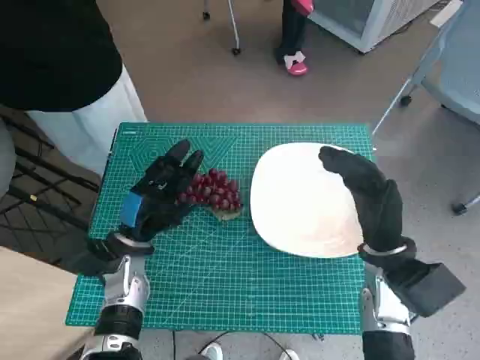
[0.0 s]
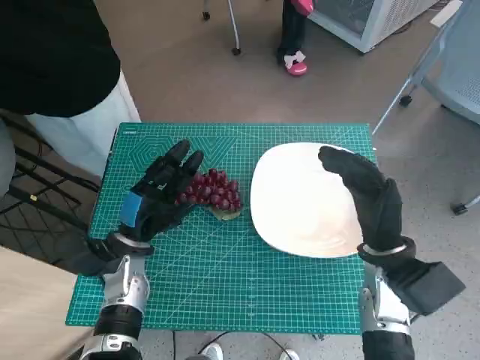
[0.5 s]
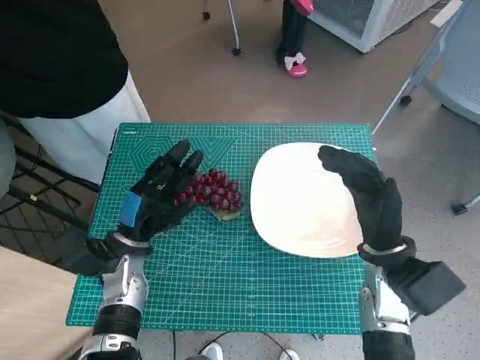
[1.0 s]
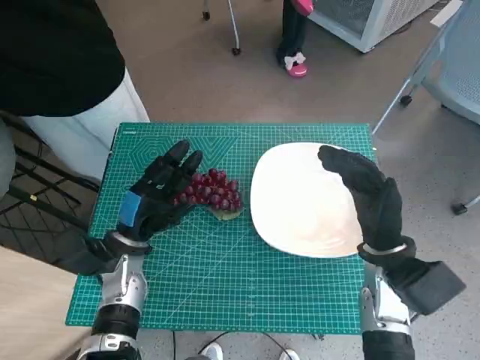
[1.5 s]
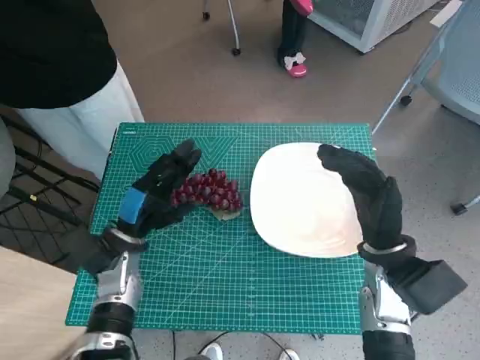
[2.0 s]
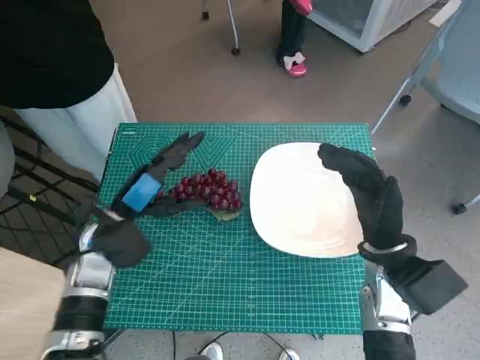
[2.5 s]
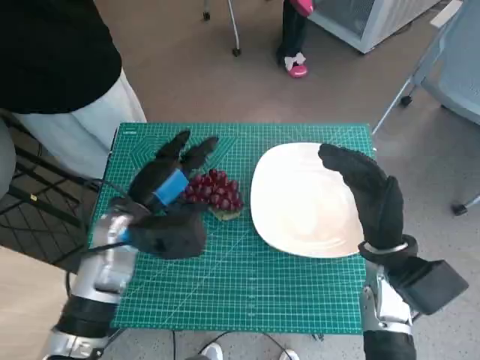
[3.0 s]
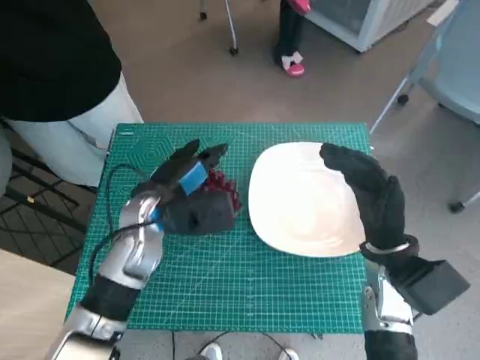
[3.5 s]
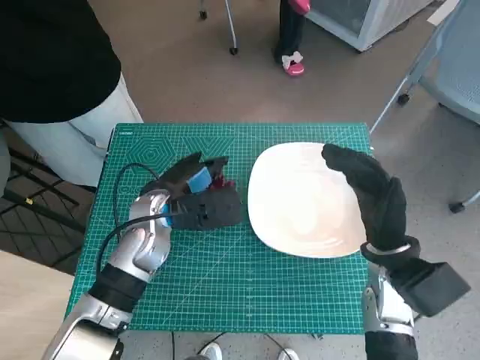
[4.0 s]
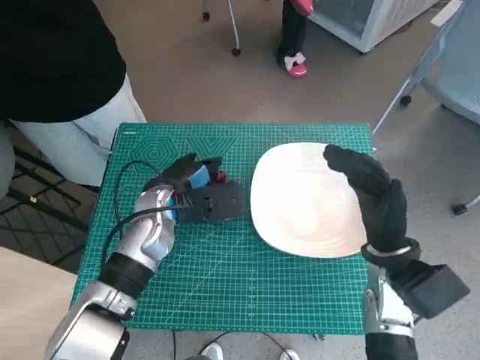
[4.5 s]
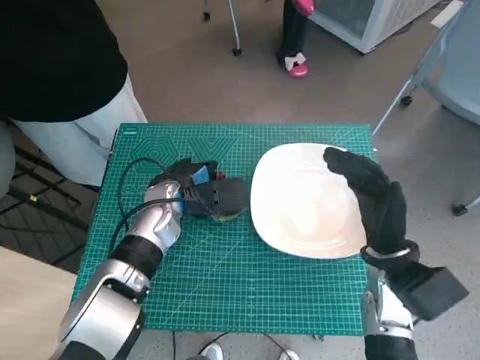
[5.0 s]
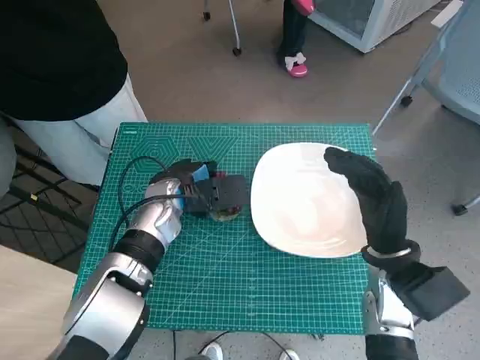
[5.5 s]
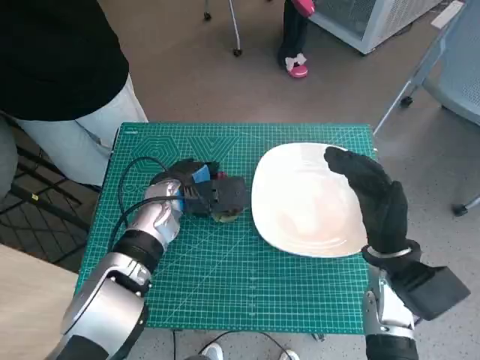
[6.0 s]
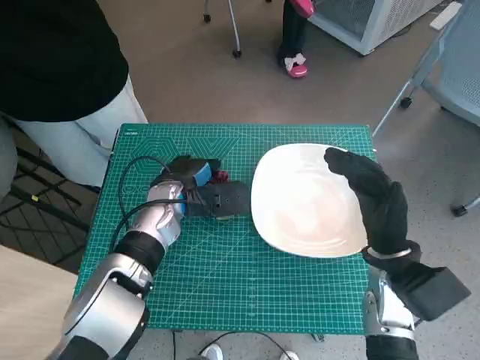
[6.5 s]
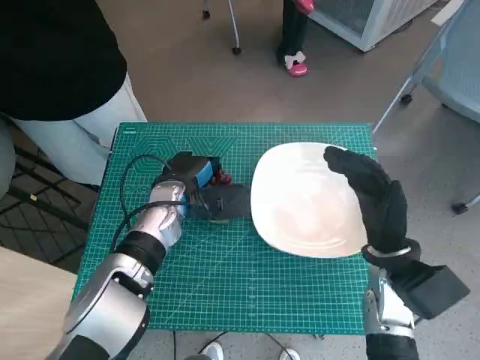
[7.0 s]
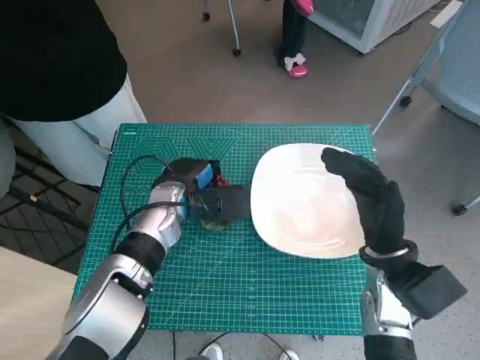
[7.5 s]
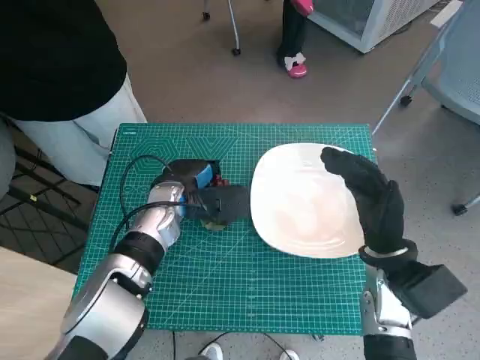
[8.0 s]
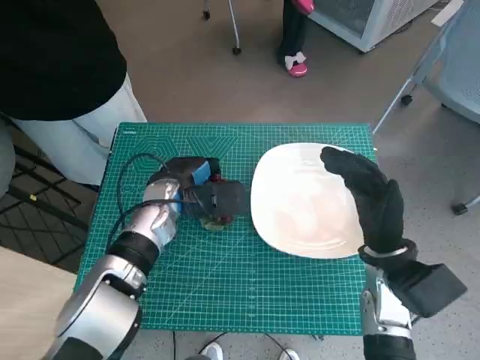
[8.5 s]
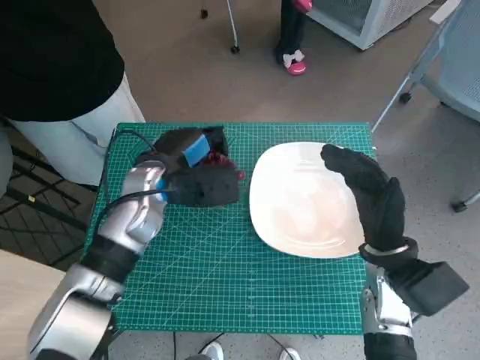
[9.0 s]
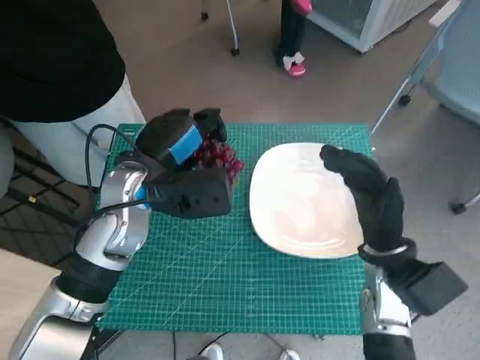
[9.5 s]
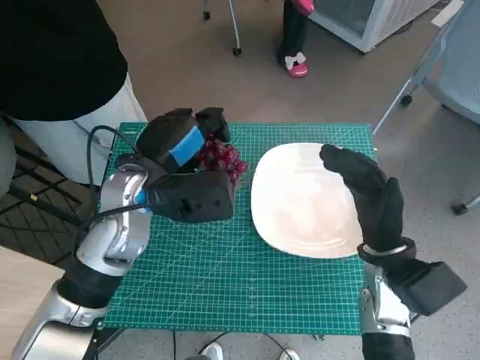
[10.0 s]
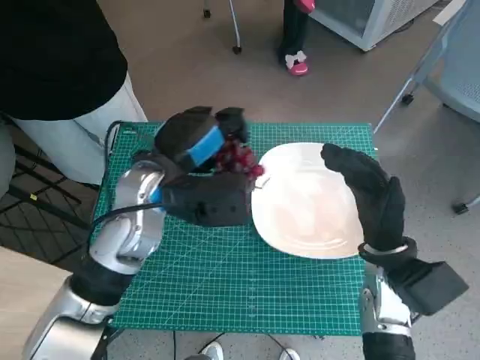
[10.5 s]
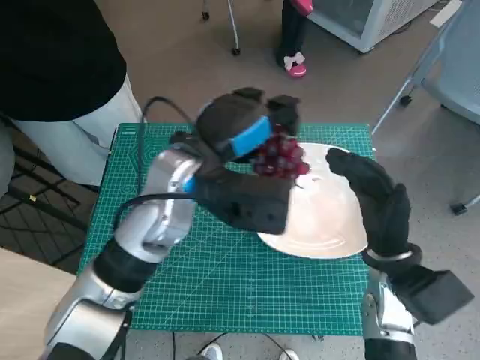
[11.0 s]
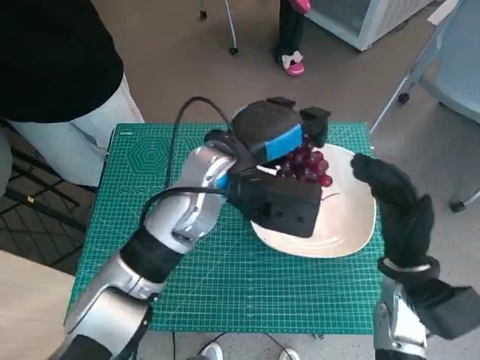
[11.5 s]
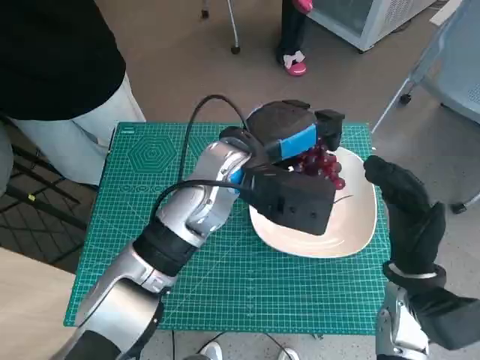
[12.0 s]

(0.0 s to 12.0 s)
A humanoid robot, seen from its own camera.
Task of the whole recording: Pick up the grapes and put them on the plate.
Step, 0.0 s - 7.5 s: Grasp the grapes with left hand.
2.0 s - 4.0 s: The left hand heads upward and to the right, covering some 10 cm.
4.0 s - 8.0 s: The hands move only a little.
8.0 s - 10.0 s: The left hand heads upward, covering approximately 10 cm.
10.0 s - 12.0 s: The left hand heads to the right, covering some 10 cm.

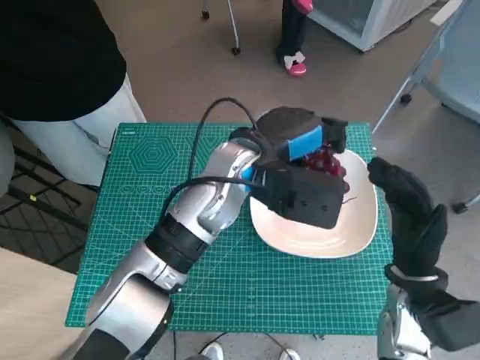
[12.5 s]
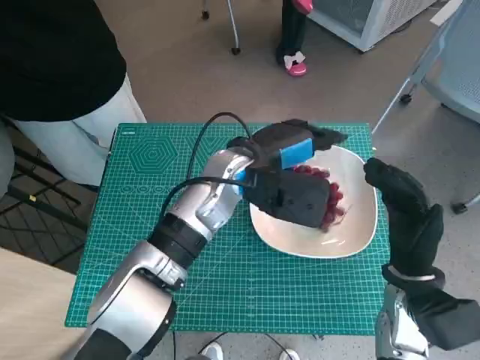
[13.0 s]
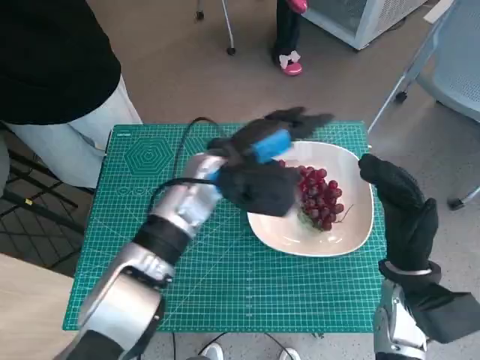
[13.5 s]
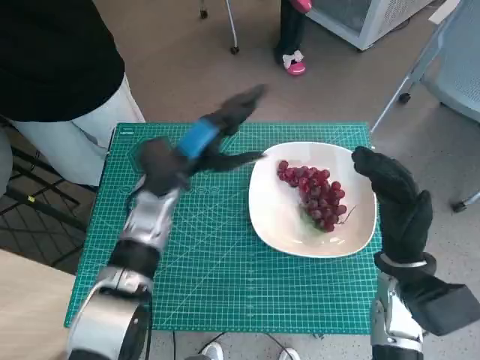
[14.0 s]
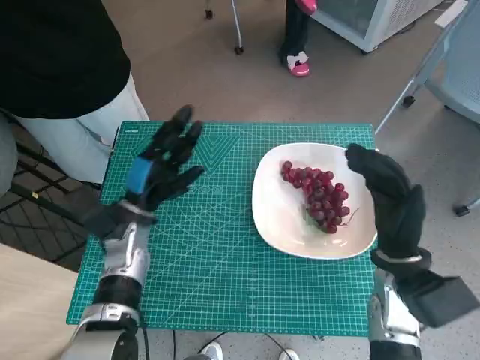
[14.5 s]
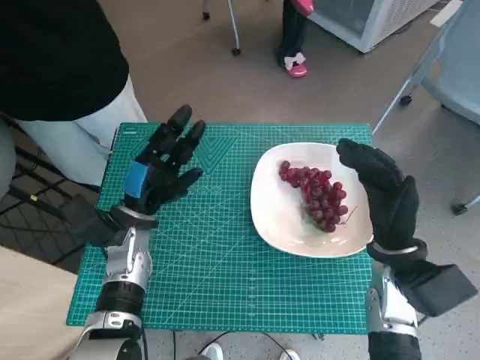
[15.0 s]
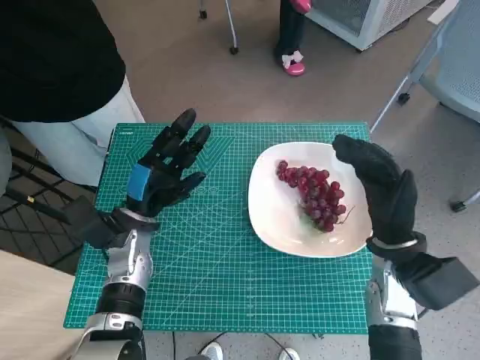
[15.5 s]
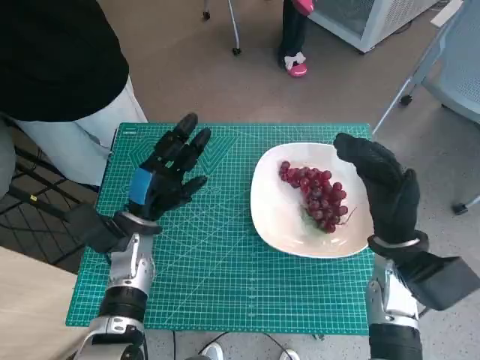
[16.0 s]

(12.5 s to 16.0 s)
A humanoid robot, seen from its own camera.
Task of the whole recording: Pick up the grapes and put them on the plate.
12.5 s - 14.5 s: The left hand goes approximately 20 cm to the left and downward.
14.5 s - 16.0 s: The hands move only a little.

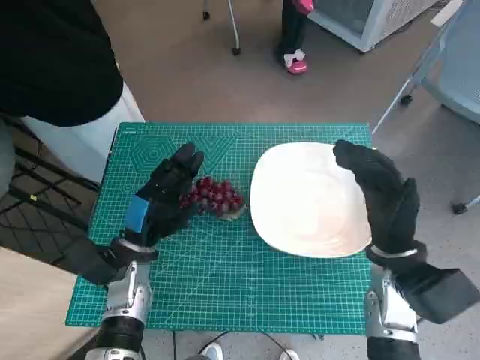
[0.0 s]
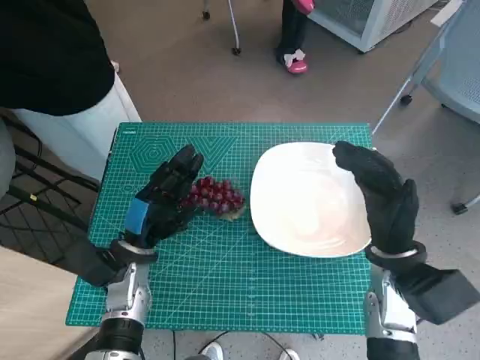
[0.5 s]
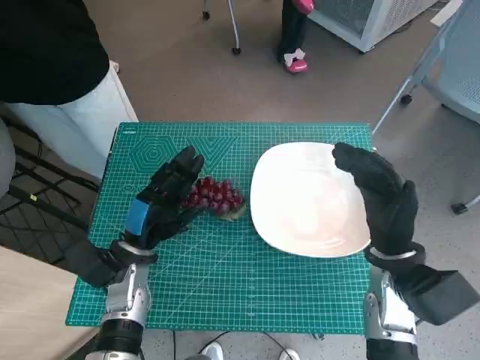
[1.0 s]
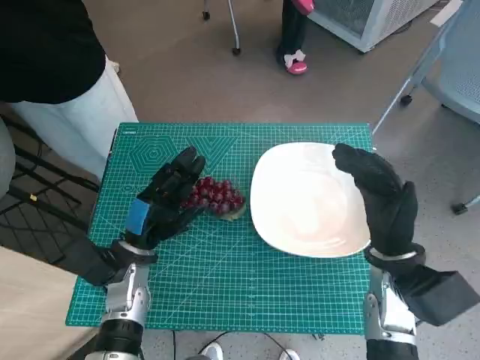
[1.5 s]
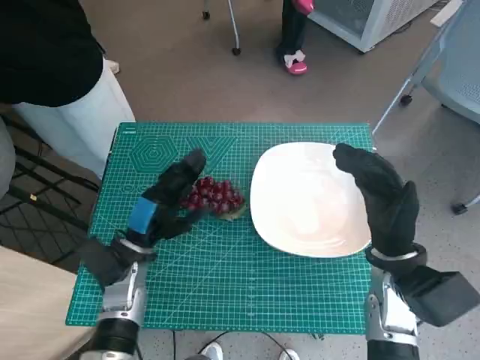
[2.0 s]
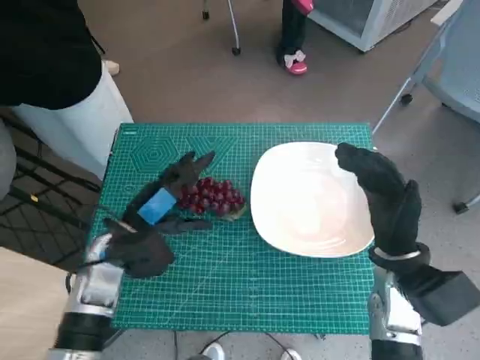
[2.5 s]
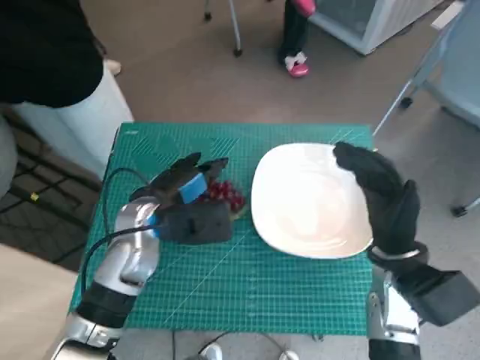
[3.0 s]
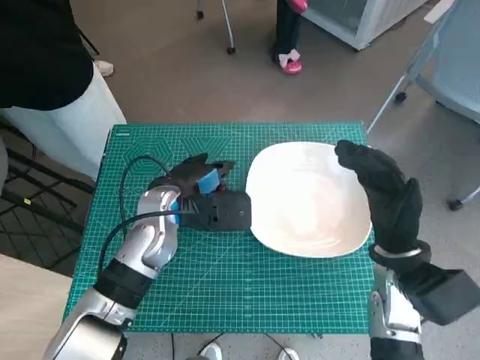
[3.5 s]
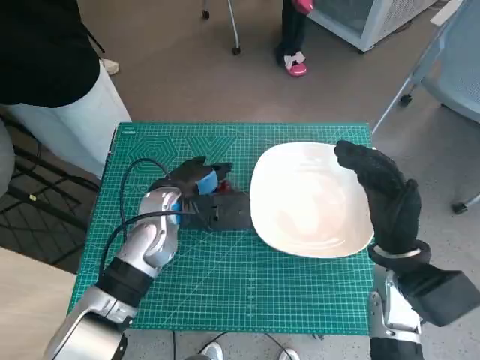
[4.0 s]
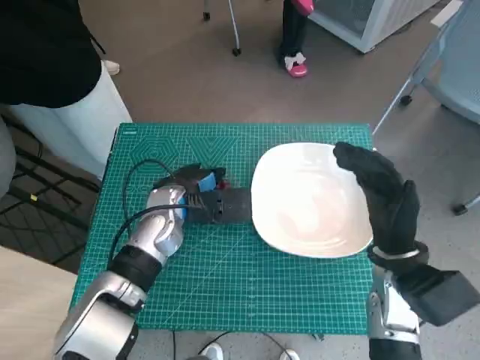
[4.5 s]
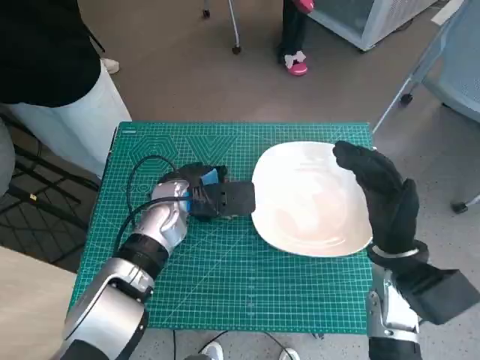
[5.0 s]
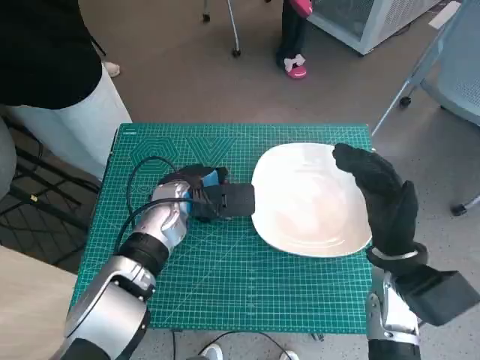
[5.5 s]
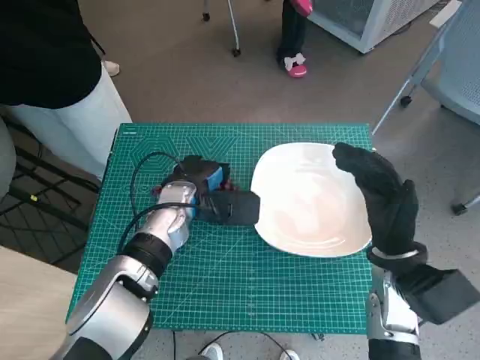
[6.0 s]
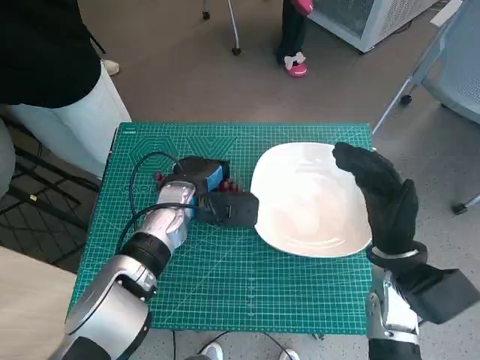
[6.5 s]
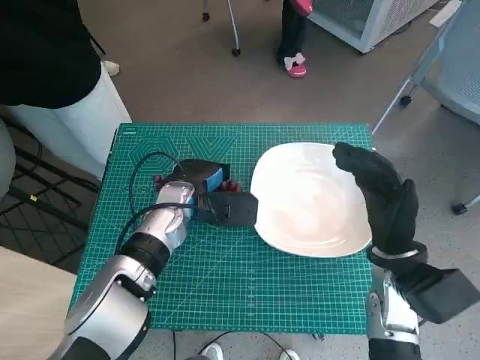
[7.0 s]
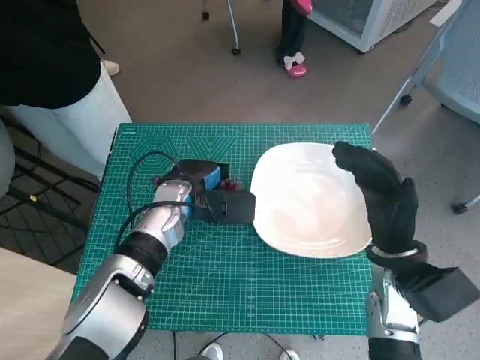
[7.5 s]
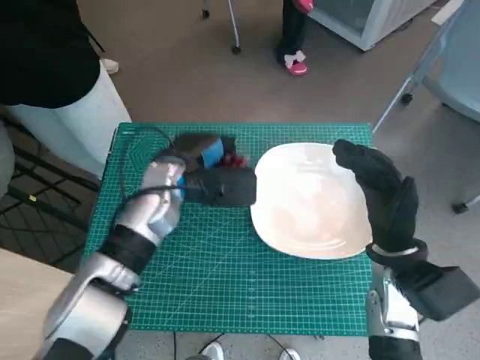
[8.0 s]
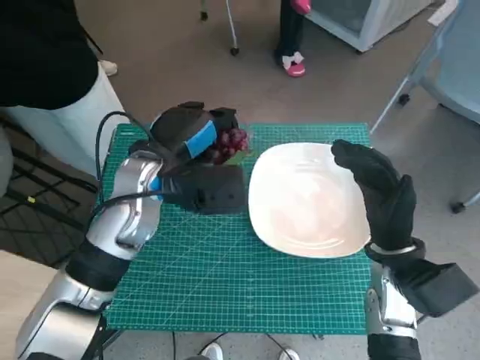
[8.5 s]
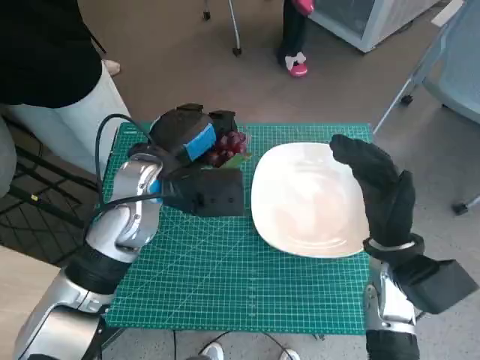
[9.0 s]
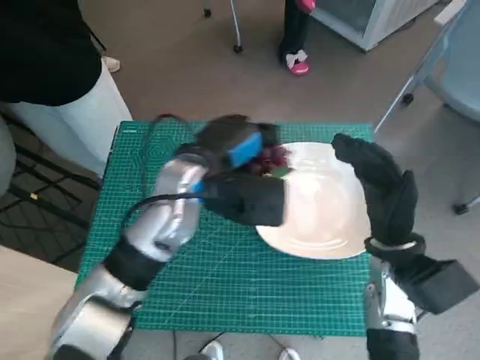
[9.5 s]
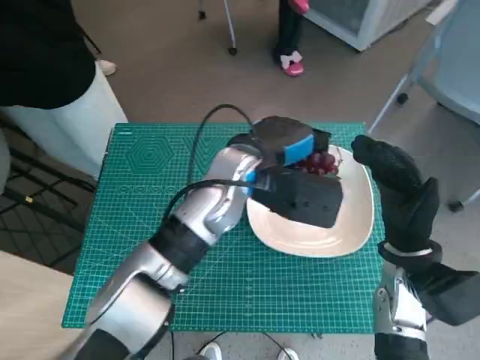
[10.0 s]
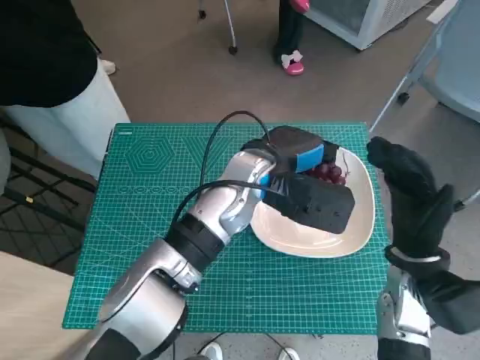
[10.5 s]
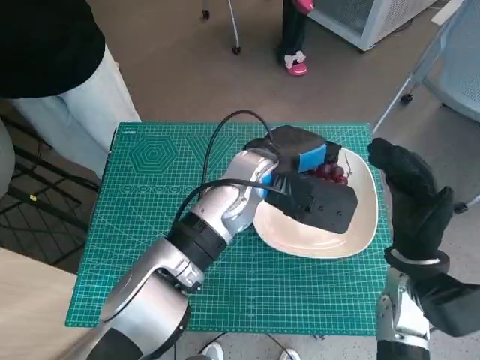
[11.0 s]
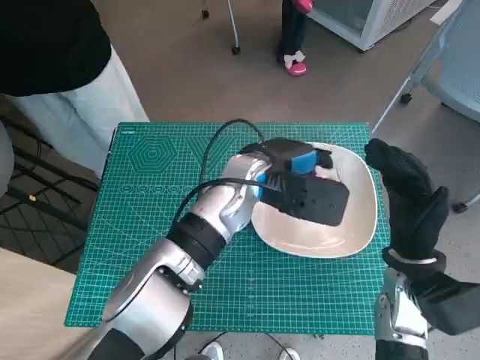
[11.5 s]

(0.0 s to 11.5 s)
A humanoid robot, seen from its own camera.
Task of the whole recording: Pick up the grapes and put them on the plate.
Step, 0.0 s - 6.5 s: Grasp the grapes with left hand.
2.0 s - 4.0 s: The left hand is displaced upward, to the right and forward by some 10 cm.
4.0 s - 7.5 s: The hands move only a little.
7.5 s - 9.5 s: The left hand heads upward, covering about 10 cm.
9.5 s - 11.5 s: The left hand heads to the right, covering roughly 10 cm.
